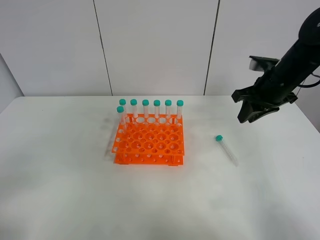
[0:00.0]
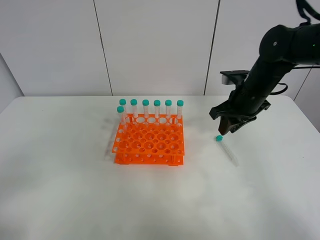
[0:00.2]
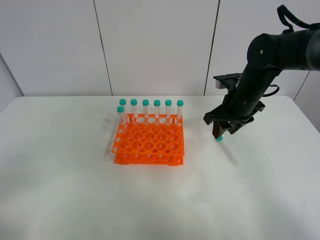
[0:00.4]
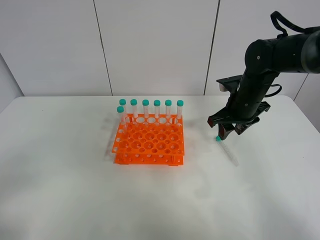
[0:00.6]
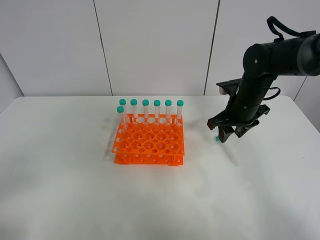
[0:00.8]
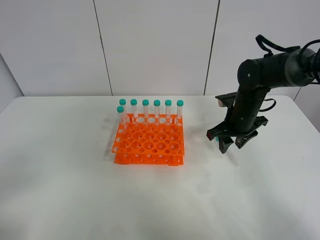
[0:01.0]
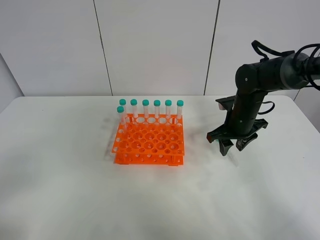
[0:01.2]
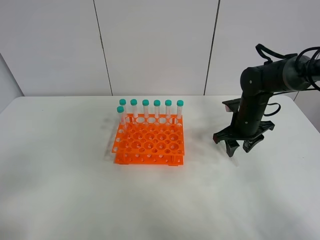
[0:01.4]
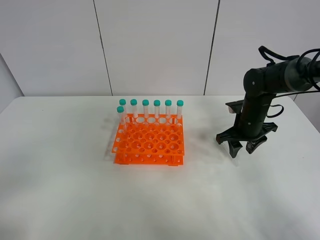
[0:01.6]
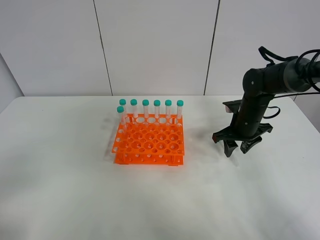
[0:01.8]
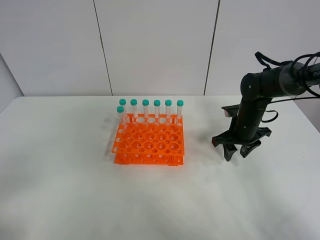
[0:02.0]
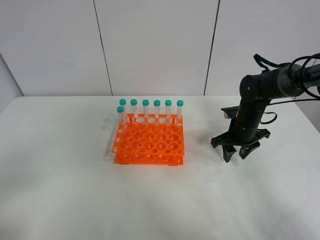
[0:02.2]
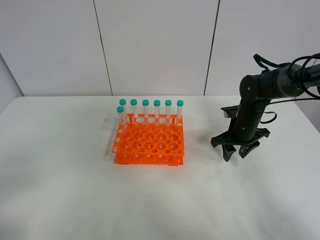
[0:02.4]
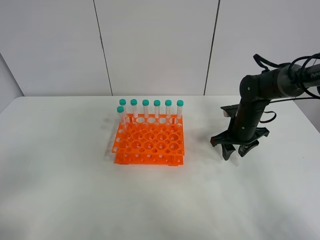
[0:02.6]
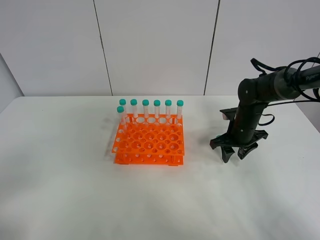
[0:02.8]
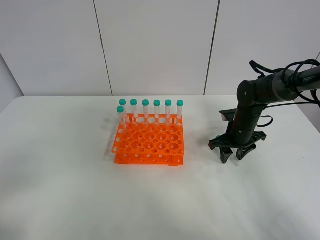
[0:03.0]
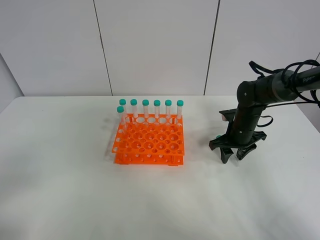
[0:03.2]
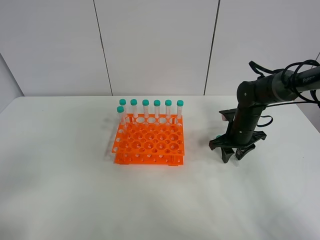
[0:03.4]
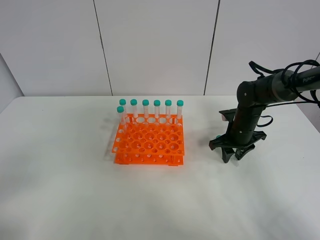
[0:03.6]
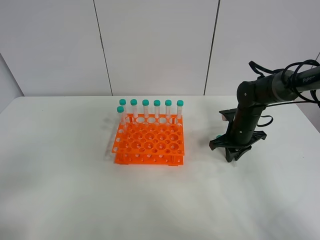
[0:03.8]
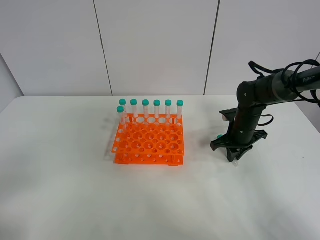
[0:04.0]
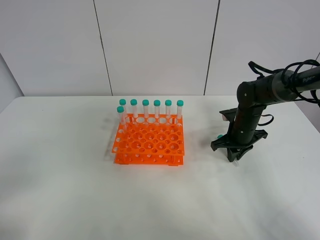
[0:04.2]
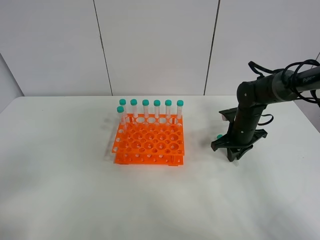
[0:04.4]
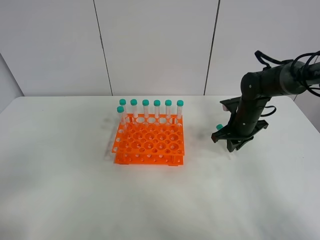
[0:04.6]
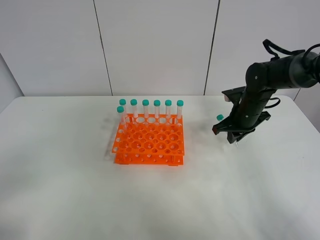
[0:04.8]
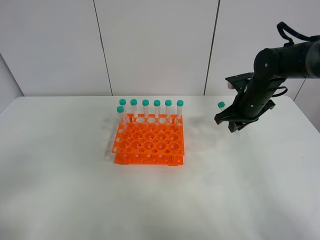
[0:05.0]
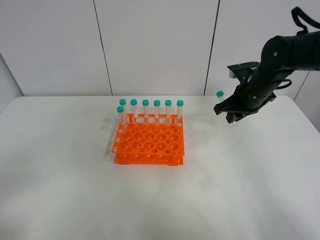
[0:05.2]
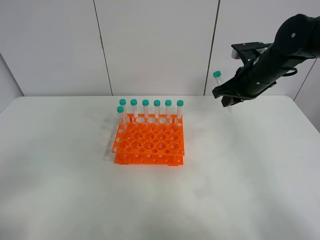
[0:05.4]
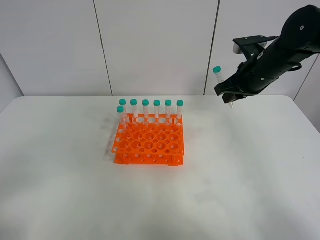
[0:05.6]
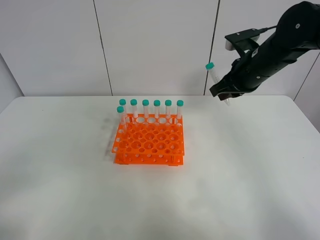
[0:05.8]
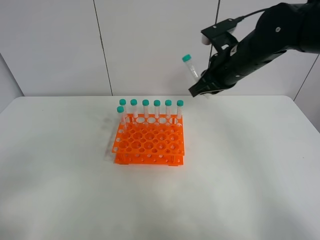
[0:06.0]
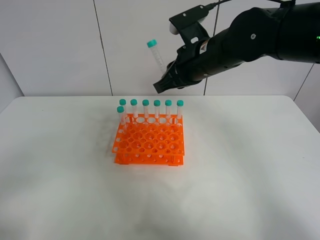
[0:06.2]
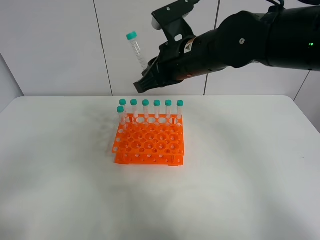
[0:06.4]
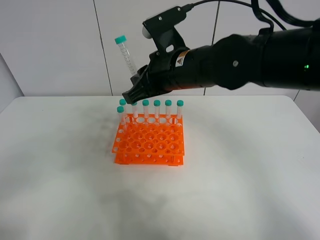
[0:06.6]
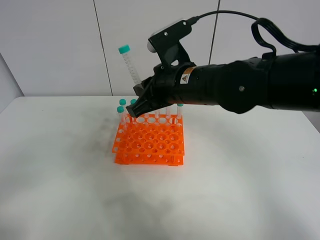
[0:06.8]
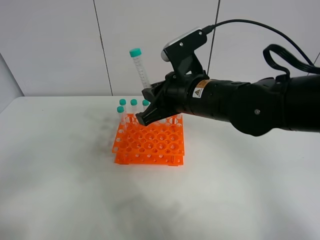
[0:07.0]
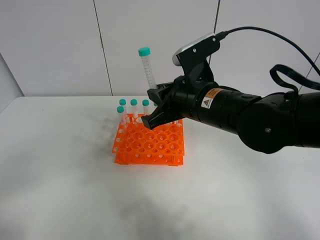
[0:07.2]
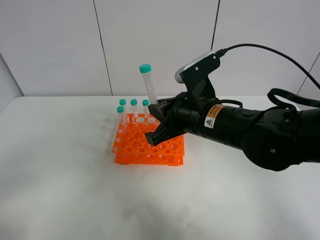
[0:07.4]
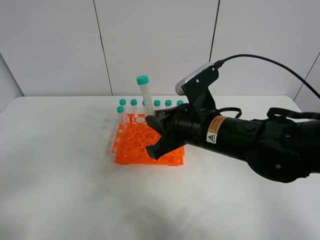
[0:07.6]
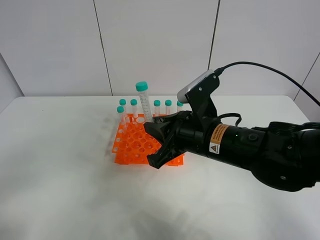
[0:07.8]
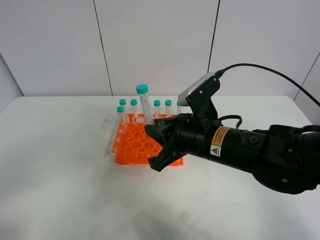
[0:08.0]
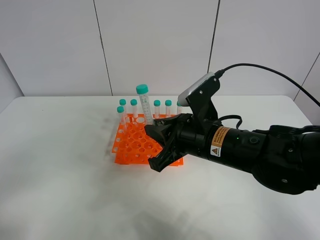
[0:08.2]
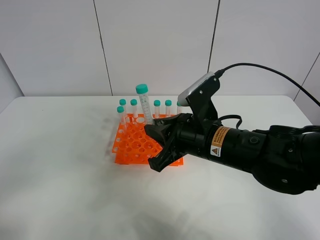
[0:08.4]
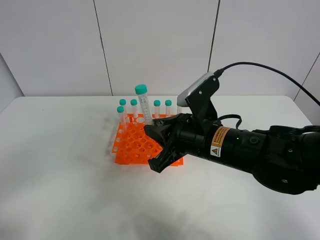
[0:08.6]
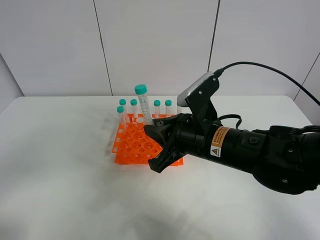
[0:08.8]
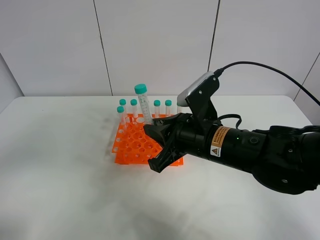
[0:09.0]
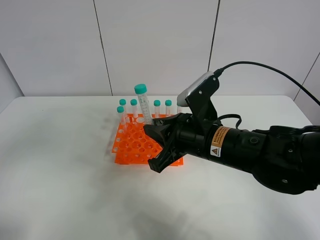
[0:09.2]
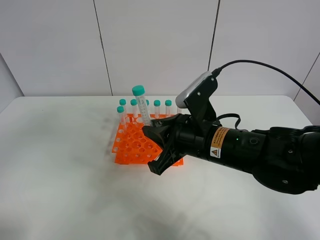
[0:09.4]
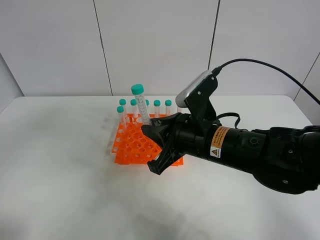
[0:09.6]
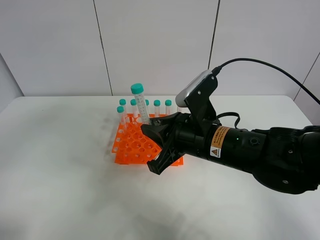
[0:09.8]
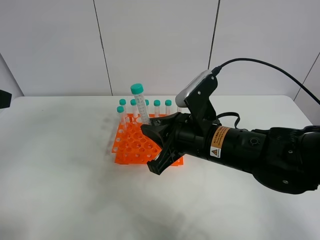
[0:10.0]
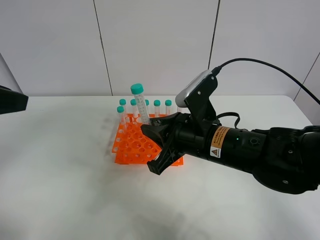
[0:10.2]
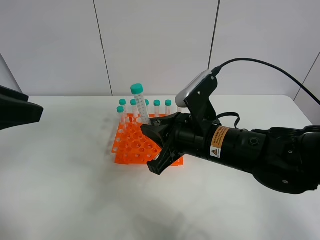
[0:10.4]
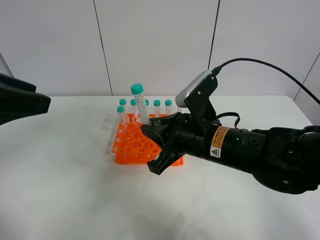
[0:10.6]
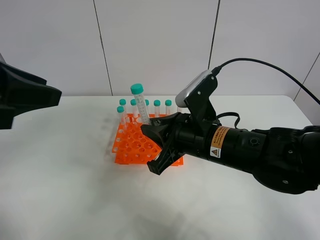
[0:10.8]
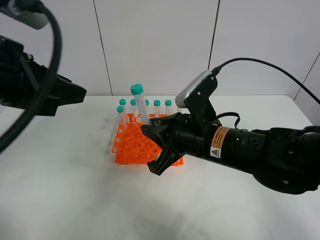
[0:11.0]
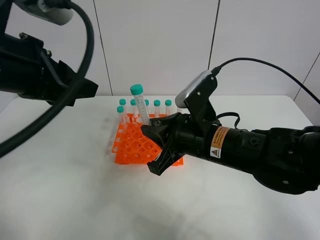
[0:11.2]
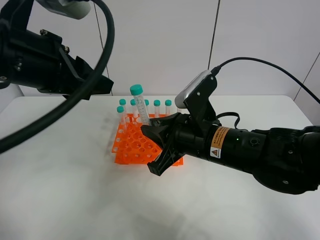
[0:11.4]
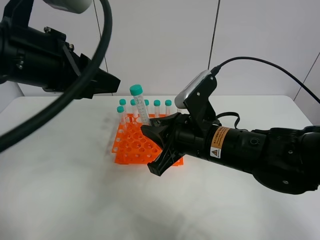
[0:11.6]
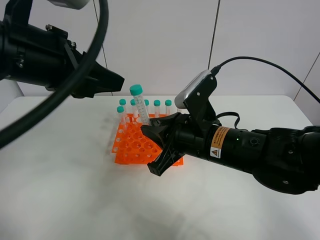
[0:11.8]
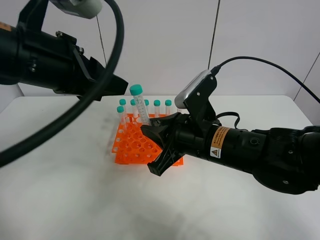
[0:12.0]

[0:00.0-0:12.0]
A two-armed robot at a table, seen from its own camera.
Task of the whole recording: Put the test tube on the table back onto the test tube rack.
Step, 0:00.0 to 0:05.4: Pick up the test tube with the right gripper.
0:00.0 to 0:01.6: The right gripper shifts roughly 10 cm downward, and opens its fingers.
0:01.6 to 0:03.0: The grippers stay close to where they were, moving slightly.
0:03.0 to 0:04.4: The right gripper closes its fingers.
0:04.4 to 0:06.0: The right gripper moves upward and to the left, approximately 20 cm.
0:06.0 to 0:07.6: The right gripper is displaced backward, downward and to the left by about 15 cm.
0:07.6 to 0:09.0: The left gripper moves upward, about 5 cm.
0:09.0 to 0:10.4: The left gripper heads forward and to the right, covering roughly 15 cm.
0:10.4 to 0:12.0: The left gripper goes about 10 cm forward and to the right.

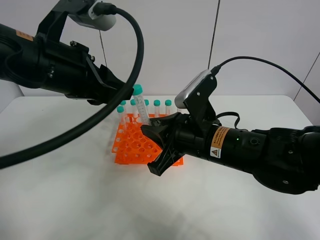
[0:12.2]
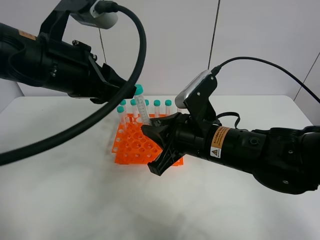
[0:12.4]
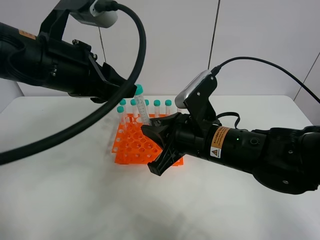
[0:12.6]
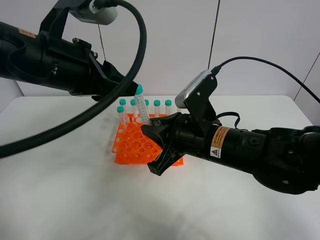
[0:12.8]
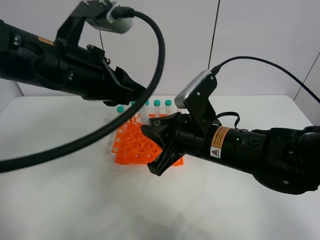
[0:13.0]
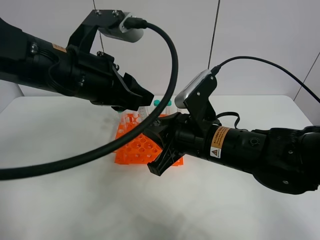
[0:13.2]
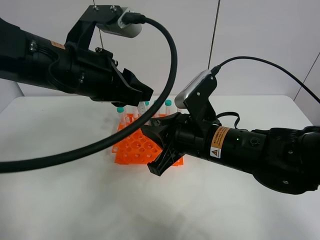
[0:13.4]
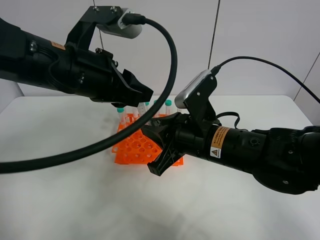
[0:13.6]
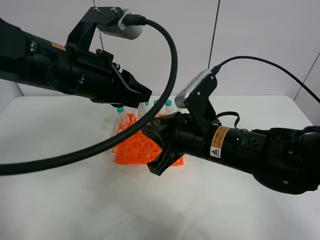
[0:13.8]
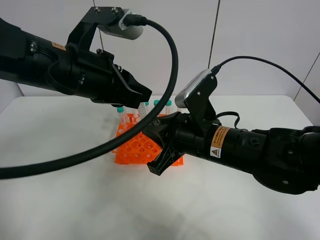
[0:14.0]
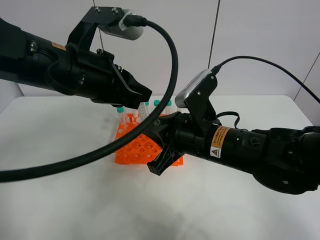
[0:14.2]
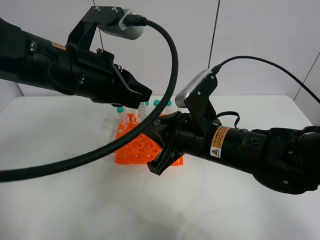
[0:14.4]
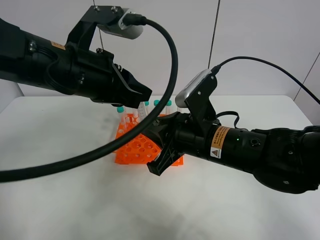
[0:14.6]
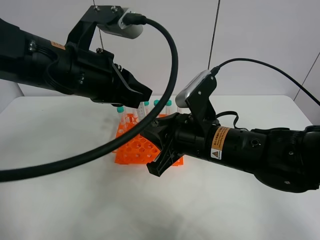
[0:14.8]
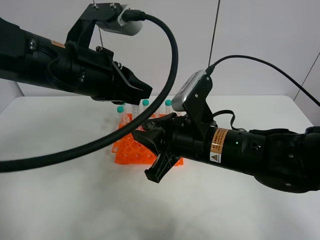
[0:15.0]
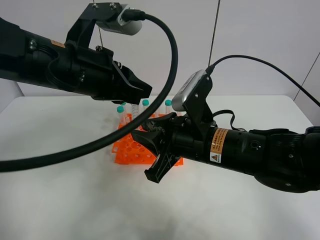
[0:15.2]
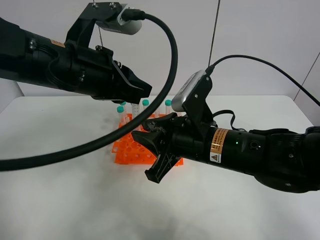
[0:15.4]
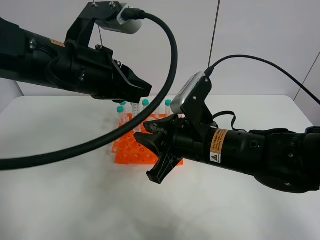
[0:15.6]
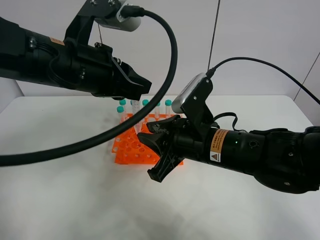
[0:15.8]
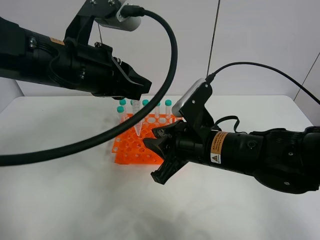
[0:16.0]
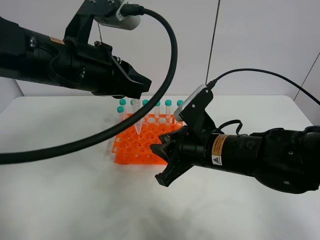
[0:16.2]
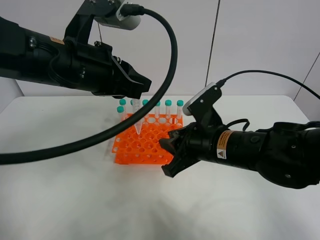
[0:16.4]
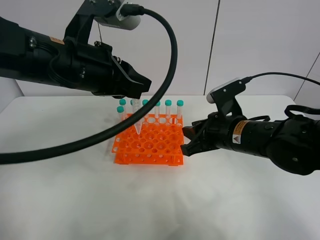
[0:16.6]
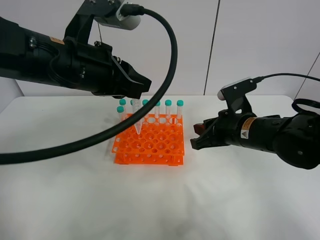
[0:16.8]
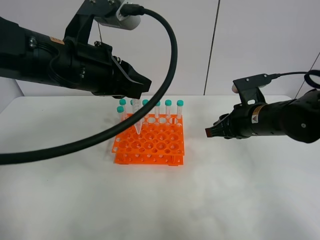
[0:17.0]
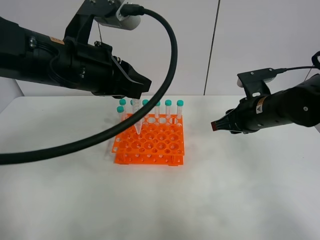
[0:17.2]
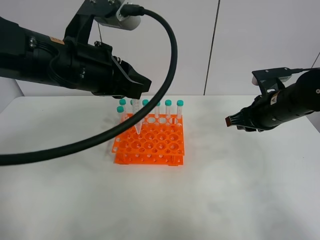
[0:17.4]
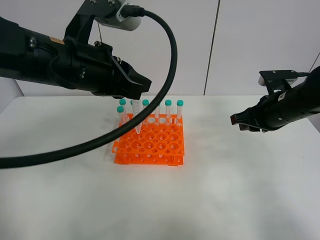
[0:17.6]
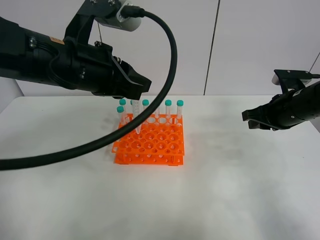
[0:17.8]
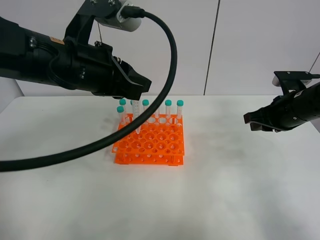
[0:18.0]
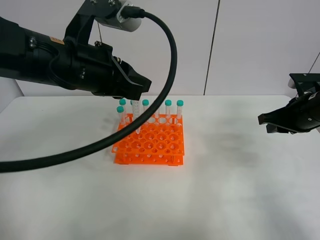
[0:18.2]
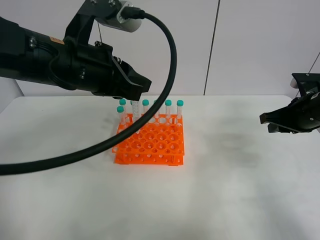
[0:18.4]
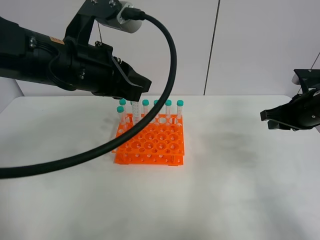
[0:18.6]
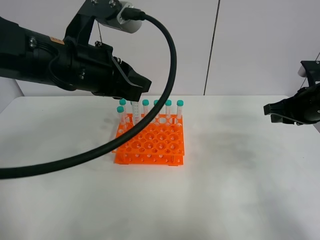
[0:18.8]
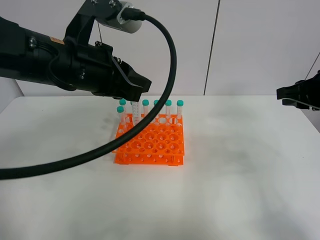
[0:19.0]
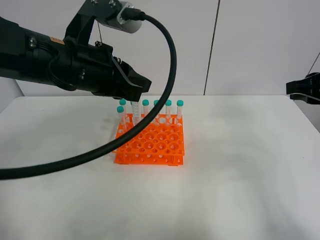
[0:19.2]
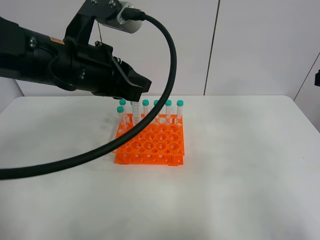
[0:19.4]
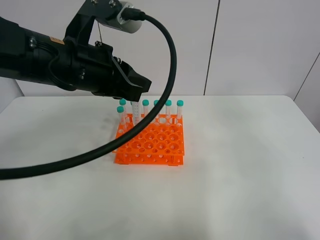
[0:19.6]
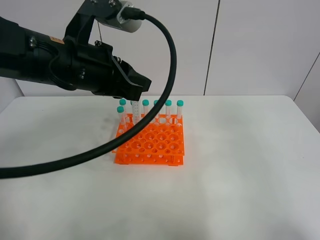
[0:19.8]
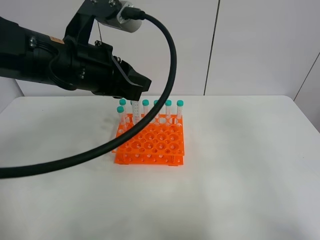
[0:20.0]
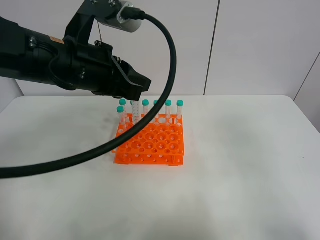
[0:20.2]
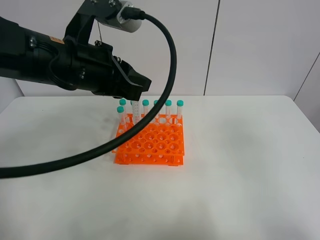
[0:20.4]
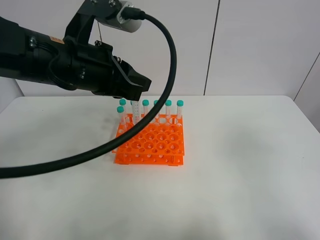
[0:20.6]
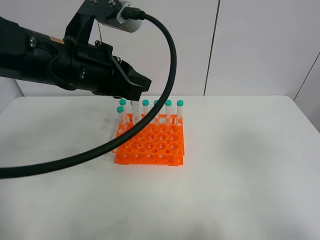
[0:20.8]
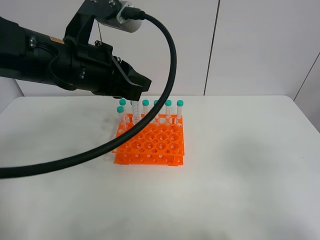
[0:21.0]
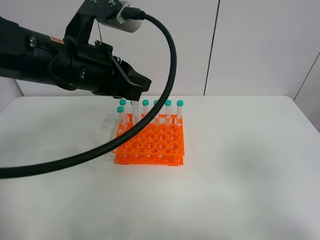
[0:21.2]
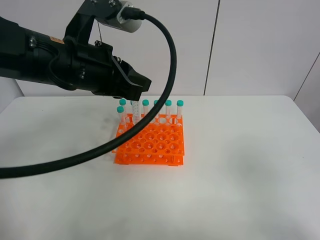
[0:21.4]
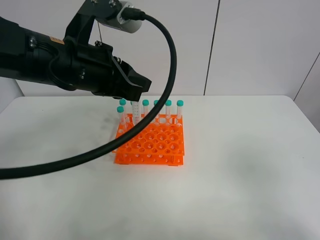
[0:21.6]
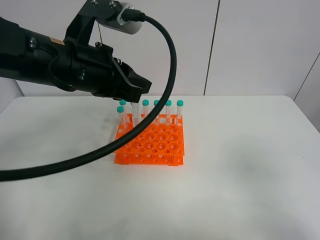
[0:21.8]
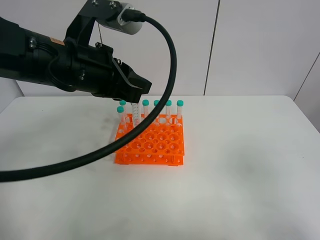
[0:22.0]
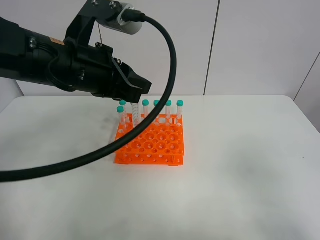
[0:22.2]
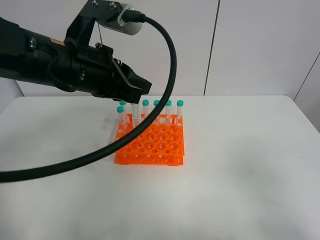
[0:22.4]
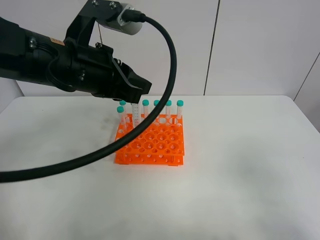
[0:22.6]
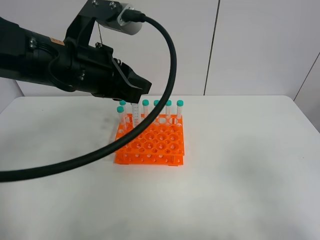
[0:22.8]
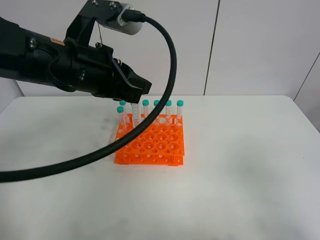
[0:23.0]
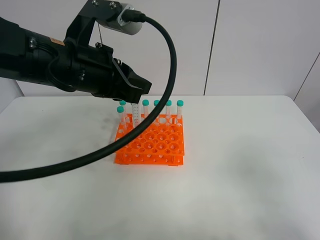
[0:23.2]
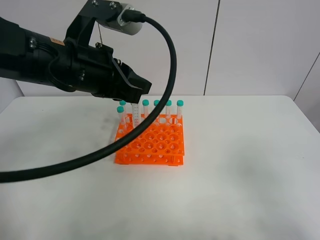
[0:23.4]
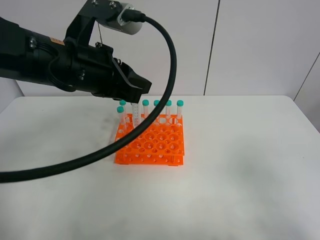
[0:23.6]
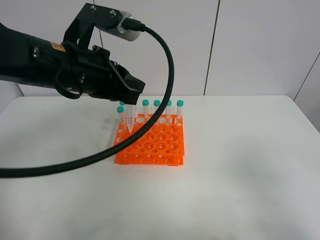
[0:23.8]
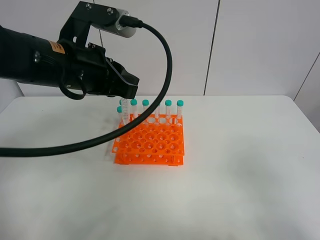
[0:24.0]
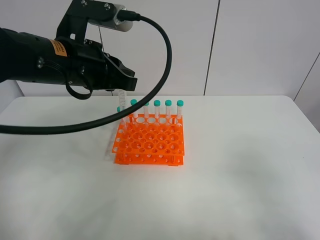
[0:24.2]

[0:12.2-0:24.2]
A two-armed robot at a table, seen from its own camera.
Task of the whole recording: Put the test tube on the table back onto the test tube rack.
Step, 0:12.2 to 0:16.4: Move the test tube from the right gripper to the left gripper.
0:12.2 to 0:13.8: The left gripper closes its fingers.
0:13.8 to 0:15.2: The right gripper opens up.
0:15.2 to 0:16.6: The right gripper moves to the right, approximately 5 cm.
0:16.6 to 0:18.2: The right gripper heads to the right, covering some 15 cm.
0:18.2 to 0:19.8: The right gripper travels backward and upward by roughly 25 cm.
0:21.2 to 0:24.2: The grippers make only small movements.
